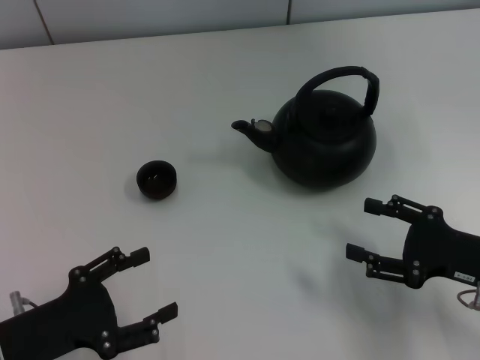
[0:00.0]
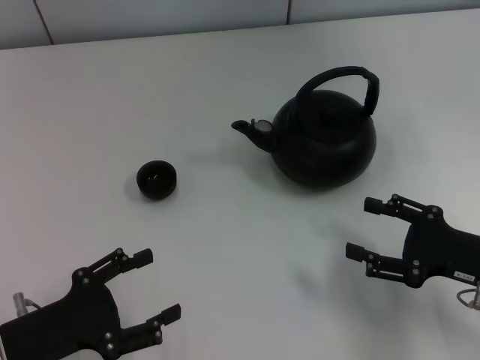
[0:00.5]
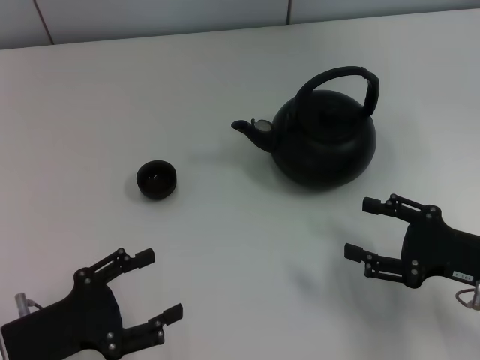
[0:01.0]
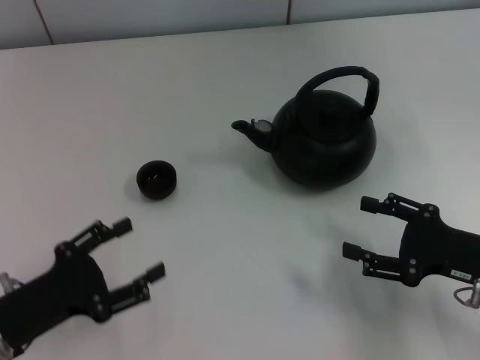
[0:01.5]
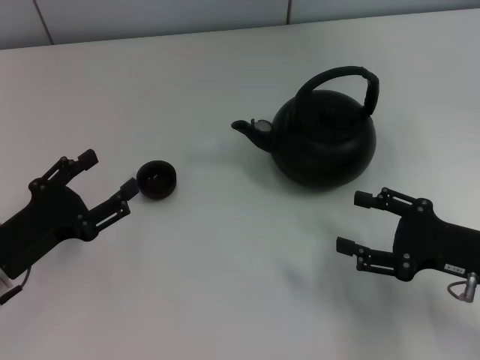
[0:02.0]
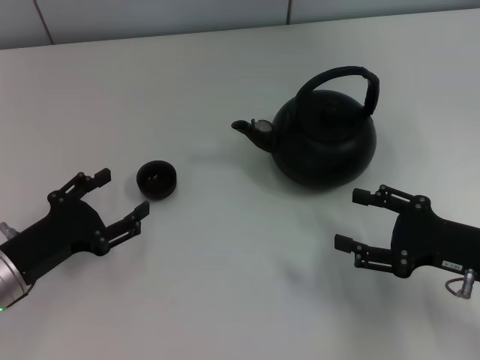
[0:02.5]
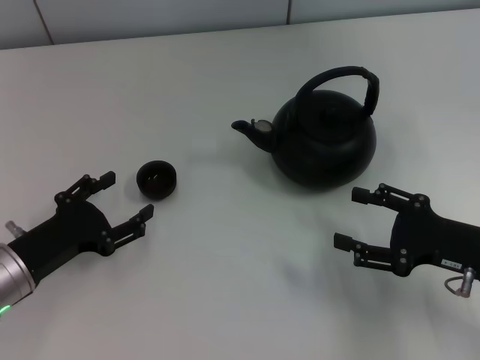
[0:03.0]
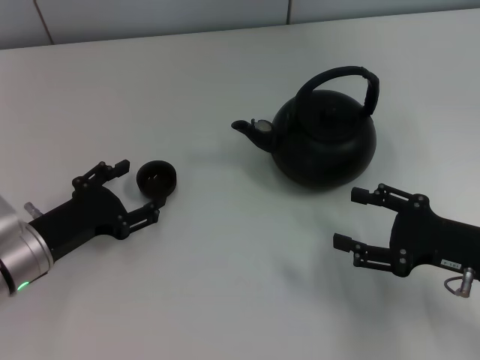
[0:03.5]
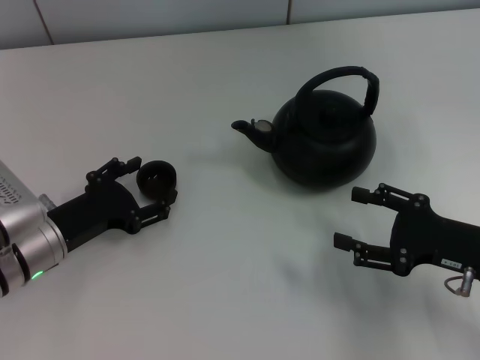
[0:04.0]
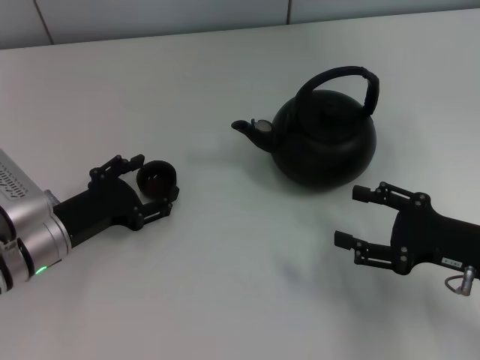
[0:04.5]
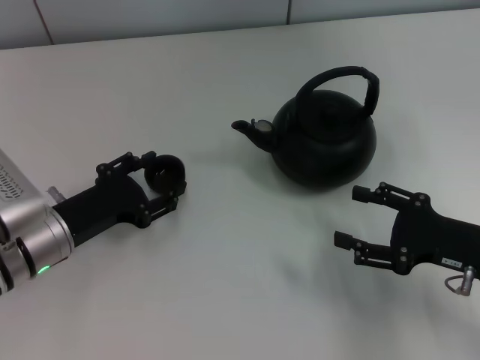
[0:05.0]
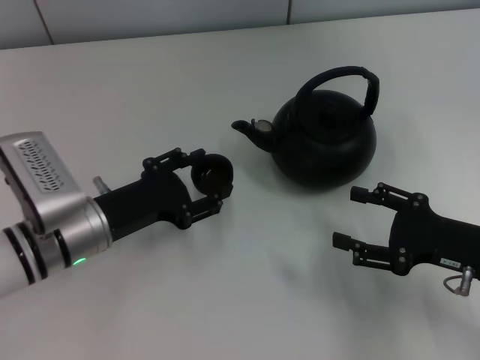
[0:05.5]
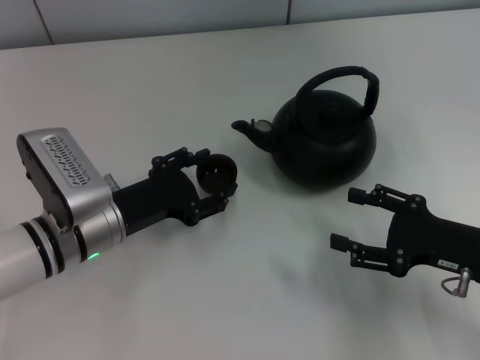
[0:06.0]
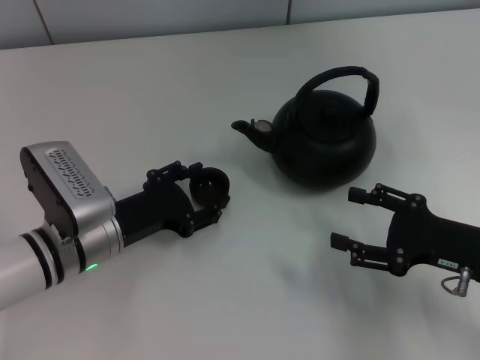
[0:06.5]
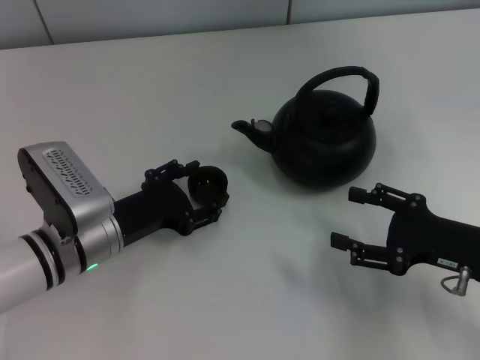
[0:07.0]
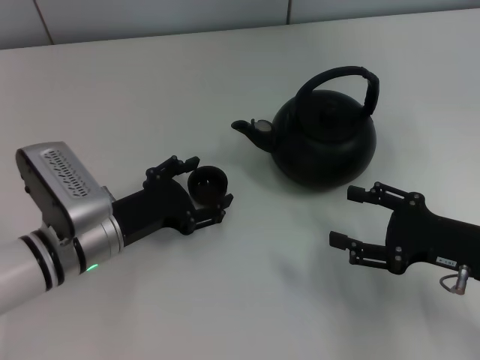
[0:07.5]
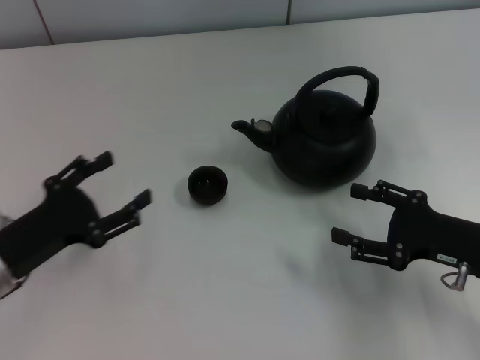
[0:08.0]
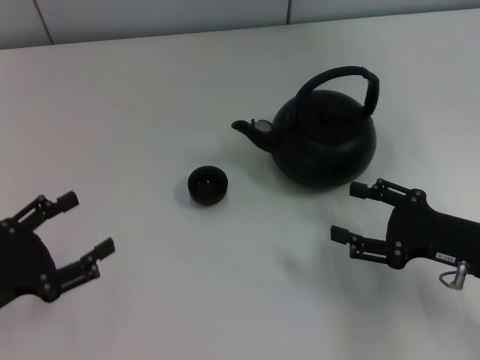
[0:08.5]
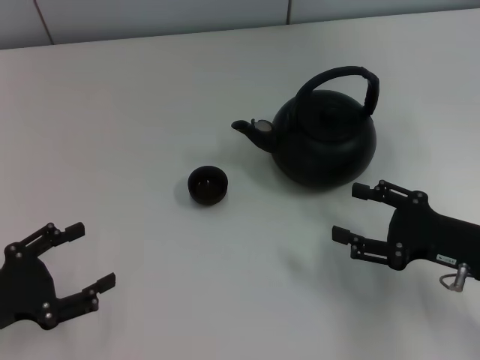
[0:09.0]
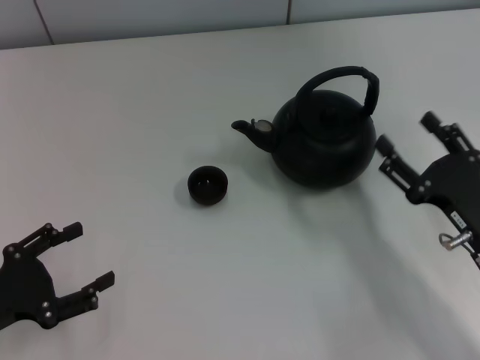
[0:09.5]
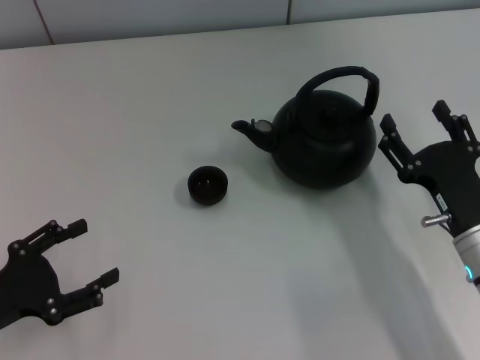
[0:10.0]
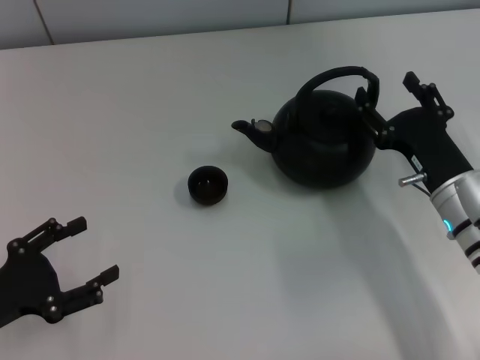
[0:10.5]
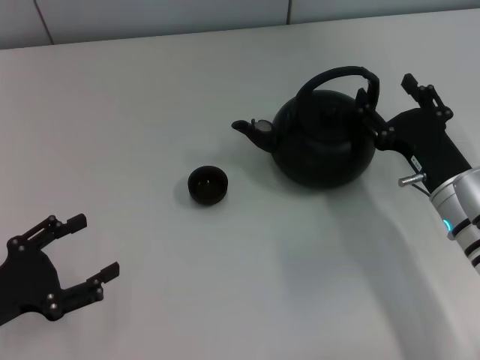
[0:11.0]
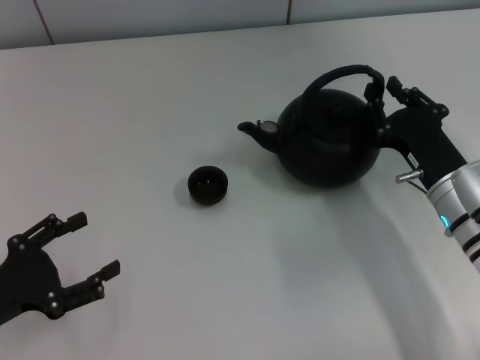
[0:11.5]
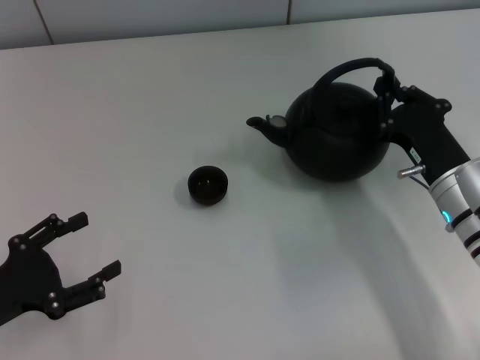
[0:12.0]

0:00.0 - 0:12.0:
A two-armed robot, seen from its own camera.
Task of the whole recording: Grasp the handle of the teapot with one hand and pour tea into the teacup.
Step, 0:00.0 - 0:05.0: Pick up the teacup with the left gripper.
Step, 0:05.5 - 0:07.5: Place the teacup in the center of view with the left gripper.
0:00.0 - 0:02.0: The left gripper moves forward, about 5 cm.
0:02.0 - 0:04.0: The left gripper changes place by approximately 5 cm.
0:04.0 - 0:06.0: The left gripper heads to the right, covering about 5 cm.
0:06.0 - 0:08.0: The left gripper moves to the left and backward, about 10 cm, and opens up.
0:08.0 - 0:10.0: The right gripper moves to the left, approximately 5 cm. The left gripper moves approximately 5 cm.
0:10.0 - 0:12.0: The right gripper travels forward by roughly 5 cm, and closes up.

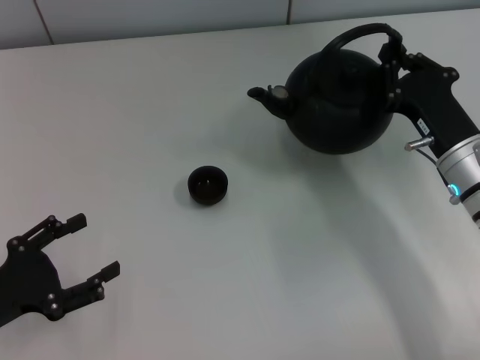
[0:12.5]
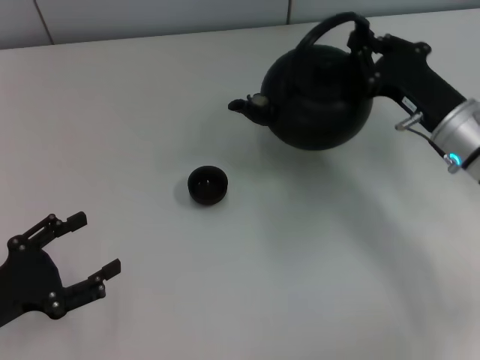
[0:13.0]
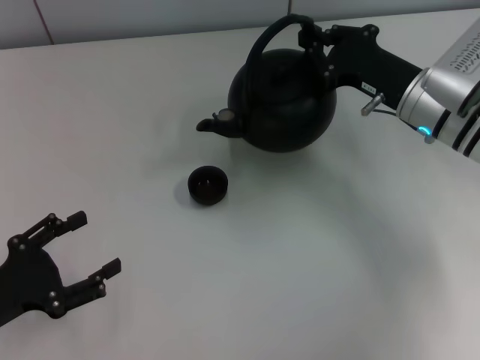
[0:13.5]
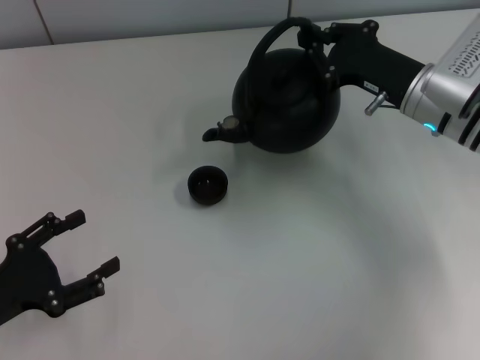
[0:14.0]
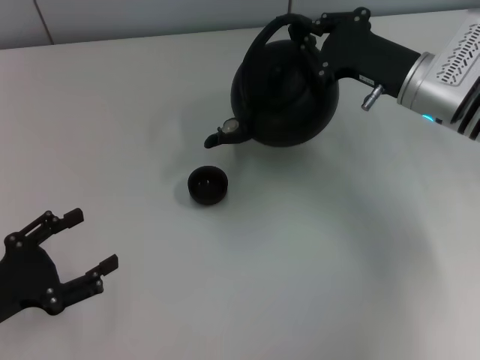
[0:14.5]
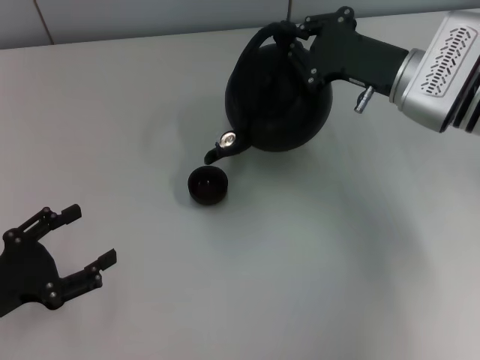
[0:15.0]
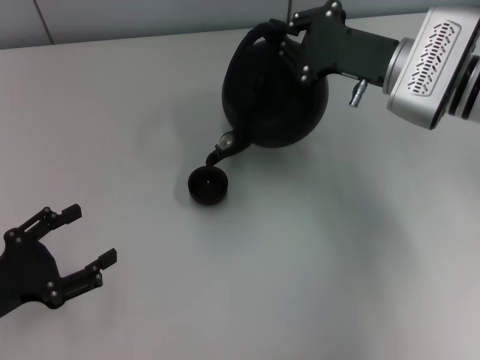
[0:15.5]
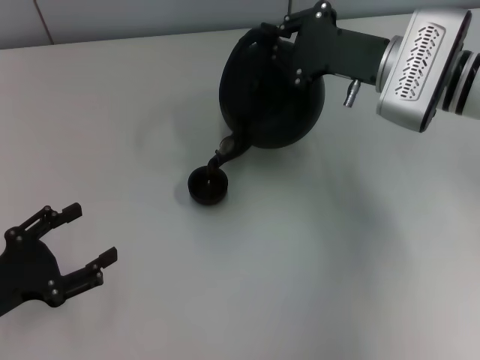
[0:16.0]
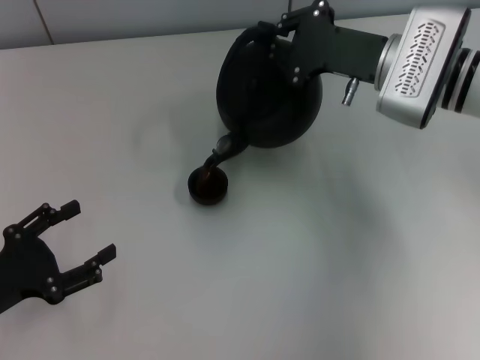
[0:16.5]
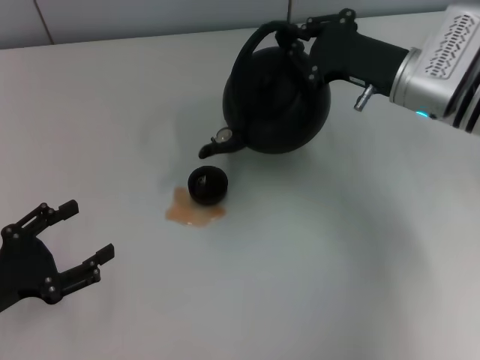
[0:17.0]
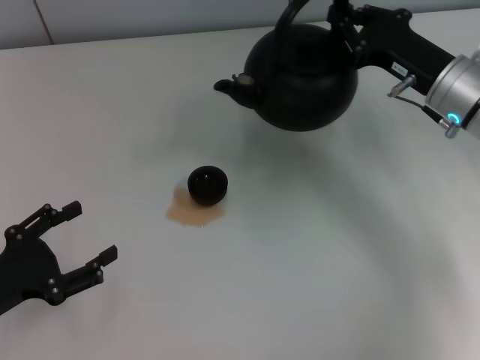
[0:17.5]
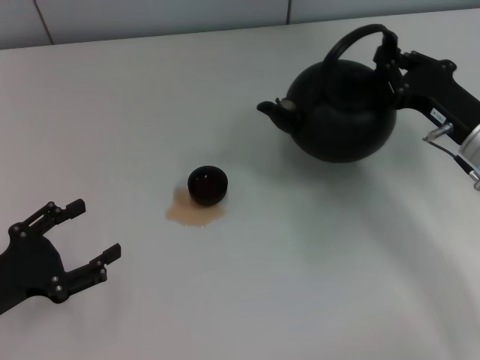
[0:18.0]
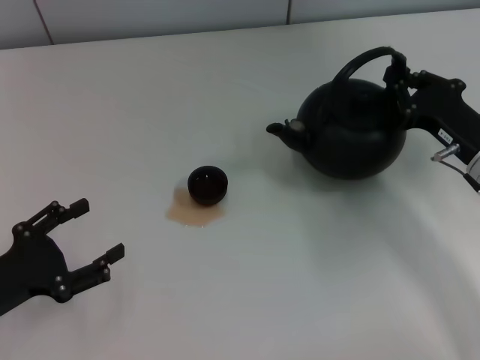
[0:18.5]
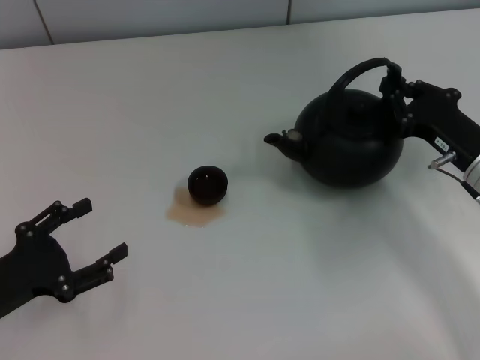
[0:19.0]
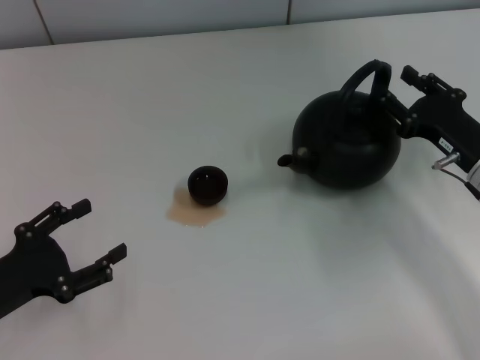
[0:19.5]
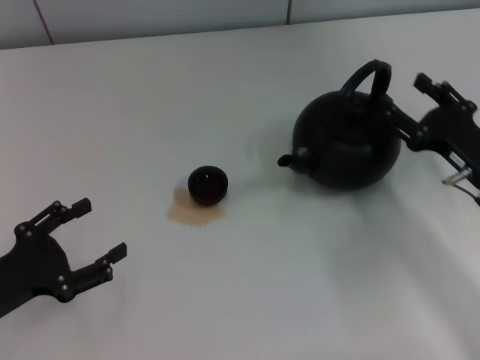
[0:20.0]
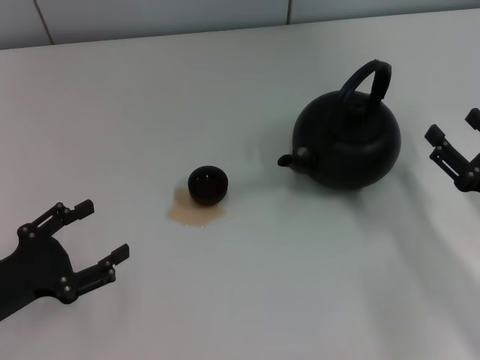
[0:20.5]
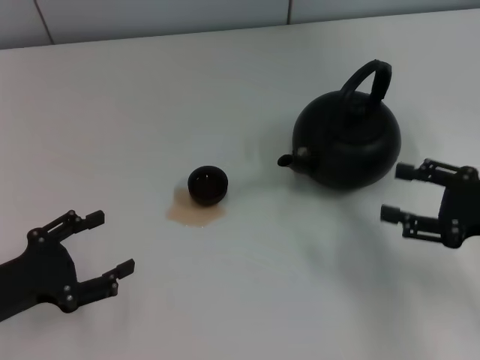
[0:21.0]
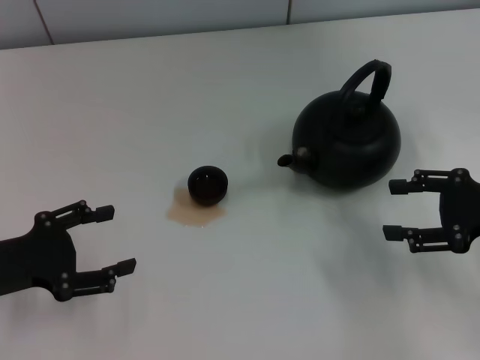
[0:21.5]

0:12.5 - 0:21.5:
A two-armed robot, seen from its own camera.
Task of the whole recording: Grasp the handle of the teapot with one hand and pour tea into the teacup.
Step, 0:17.0 - 0:19.5: Put down the teapot with the right gripper.
0:12.5 - 0:14.5: The right gripper shifts about 10 cm forward and upward.
0:17.0 - 0:19.5: The right gripper moves backward, downward and to the right, about 15 cm.
0:19.5 - 0:21.5: The right gripper travels upward and to the right by roughly 5 cm, and opens up, while the left gripper shifts by some 5 cm.
